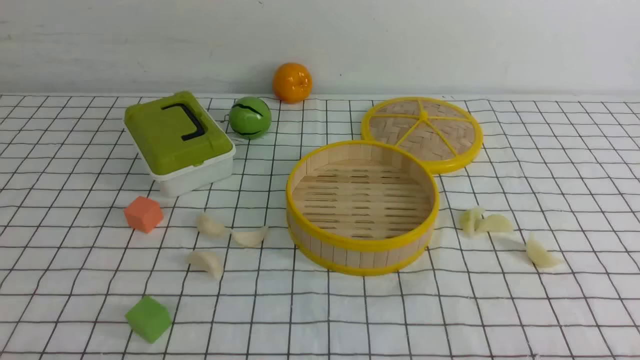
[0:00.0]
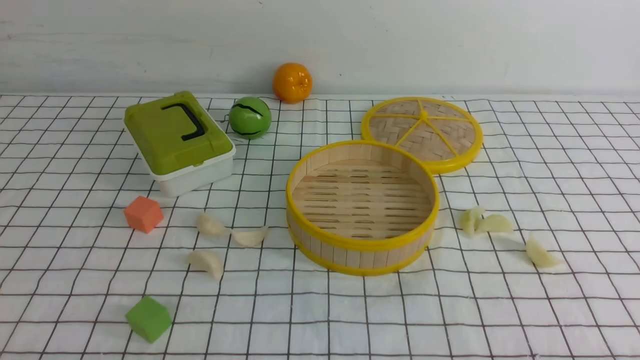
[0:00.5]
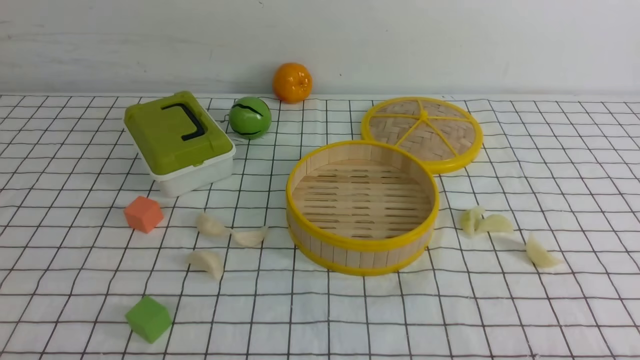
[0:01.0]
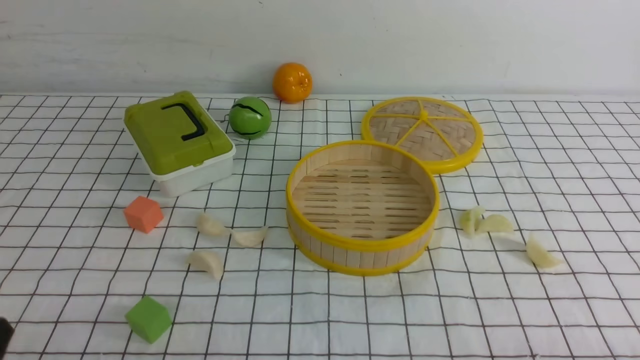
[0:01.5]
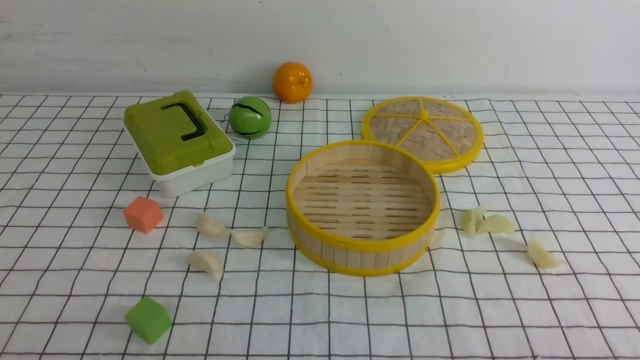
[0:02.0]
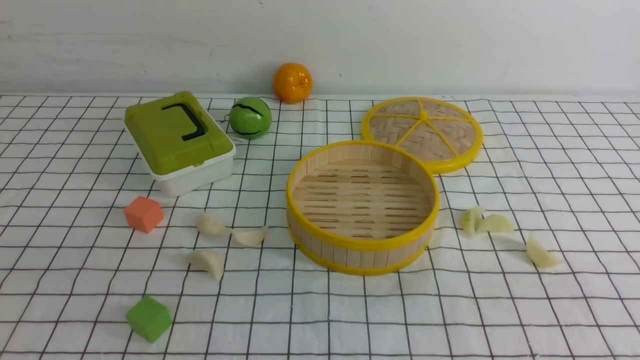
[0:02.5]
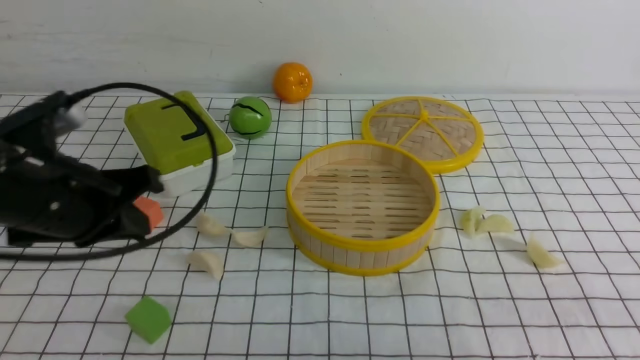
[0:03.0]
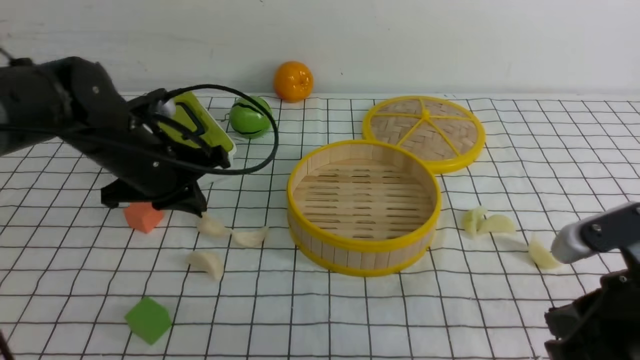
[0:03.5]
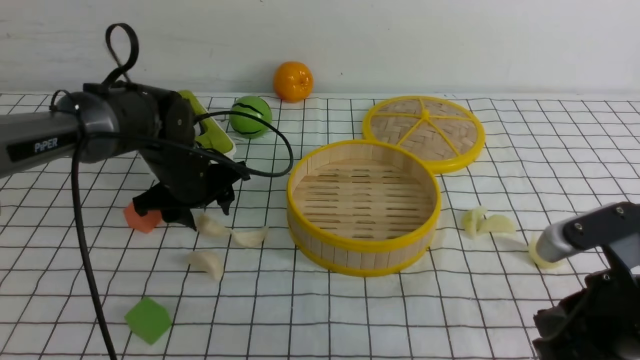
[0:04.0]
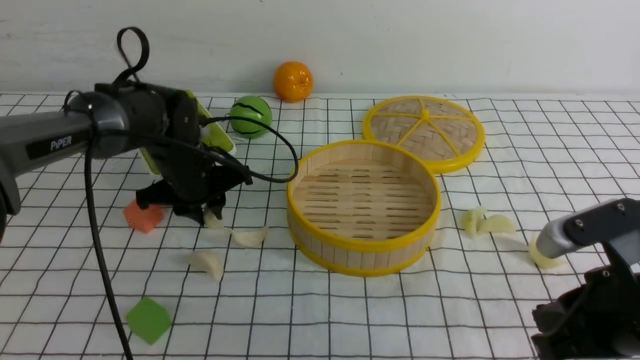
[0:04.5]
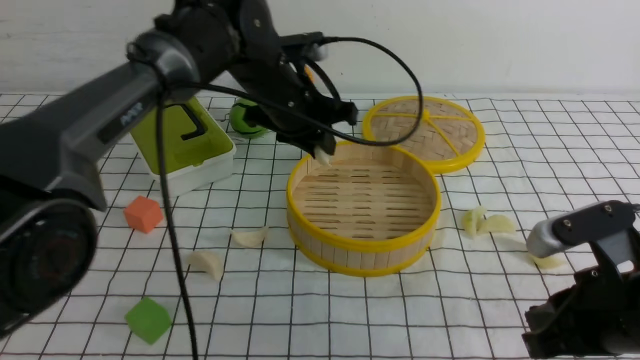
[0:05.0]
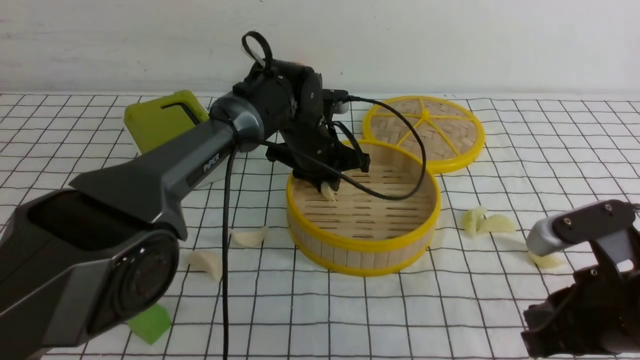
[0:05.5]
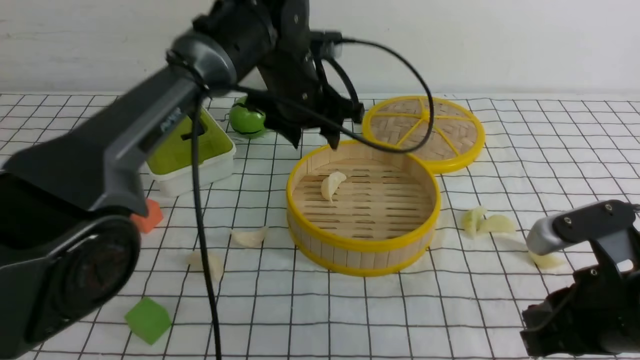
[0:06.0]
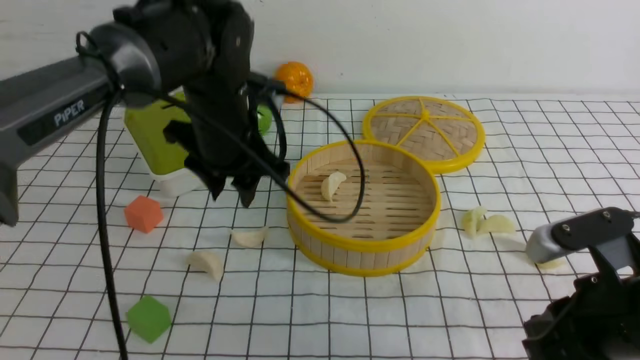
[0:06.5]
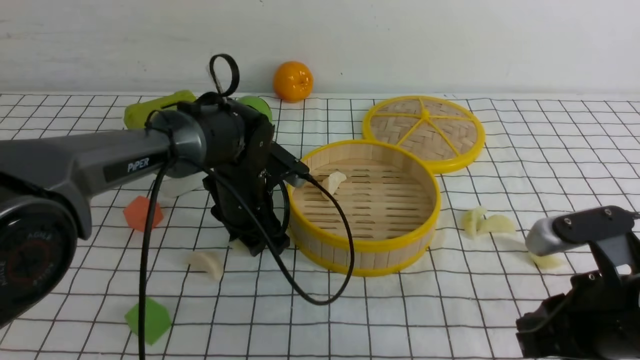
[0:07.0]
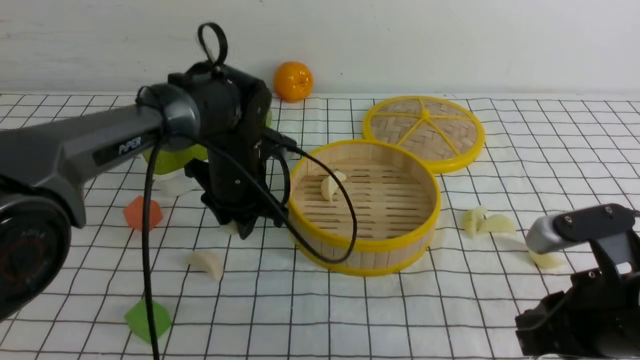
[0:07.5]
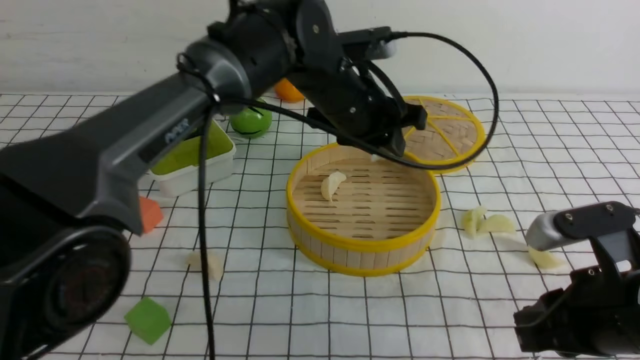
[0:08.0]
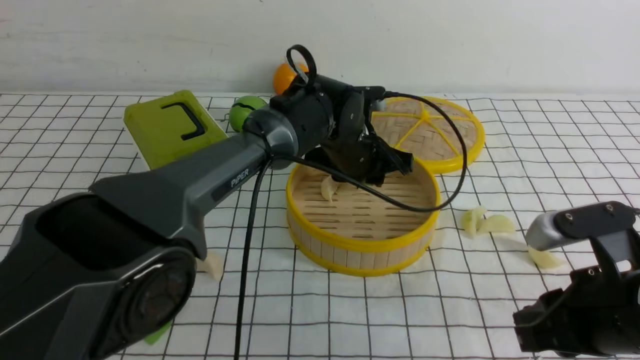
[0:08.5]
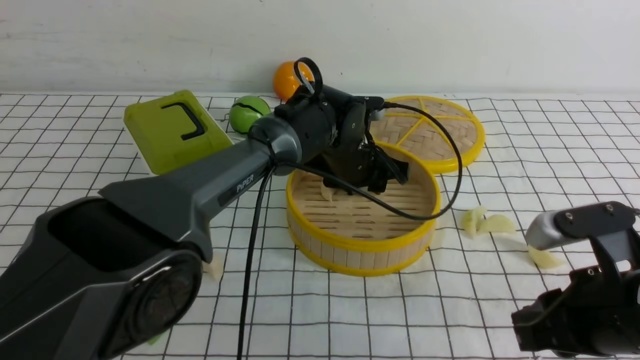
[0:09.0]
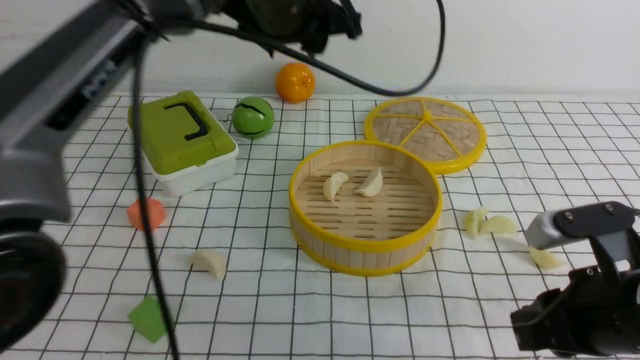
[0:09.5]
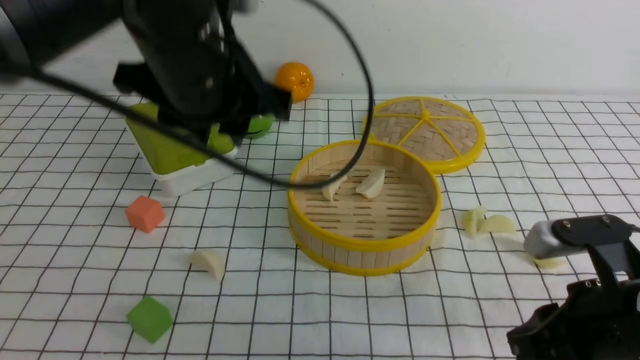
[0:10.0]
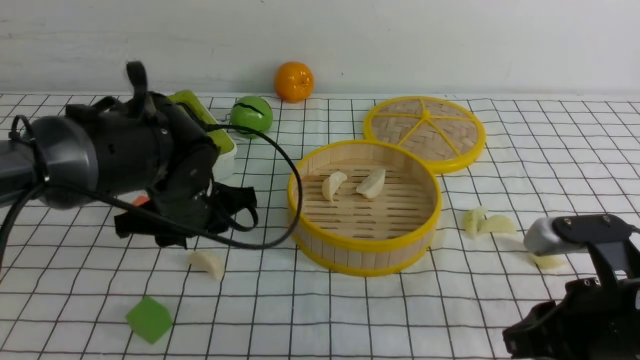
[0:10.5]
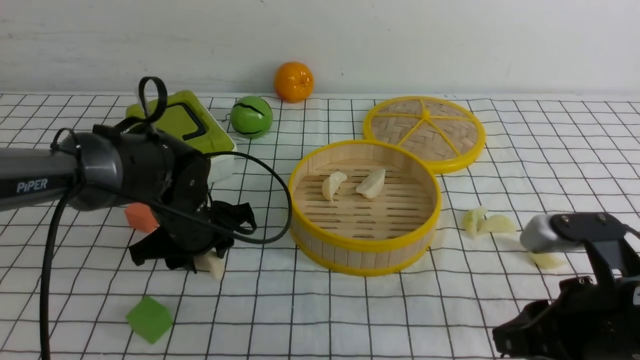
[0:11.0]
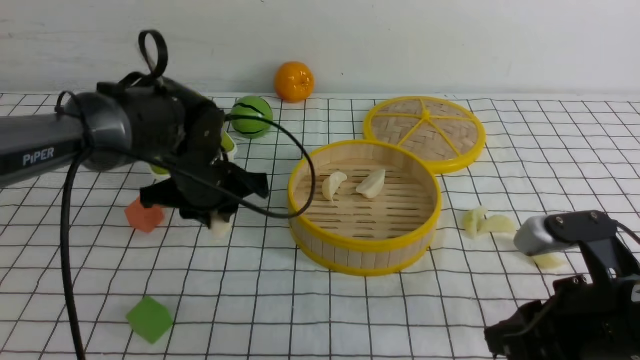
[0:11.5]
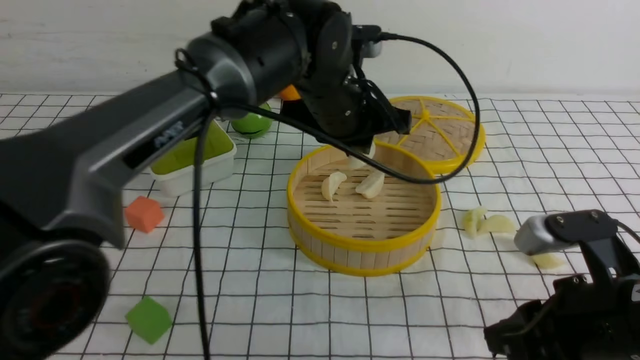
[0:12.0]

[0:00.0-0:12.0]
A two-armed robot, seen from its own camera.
Task of the whole recording: put the dumplings into the steamer on the table with the white tablecloth.
Step, 0:00.0 to 0:04.5: use the left arm to grab a dumpling.
Step, 0:05.0 to 0:06.0: use the left arm to put the dumpling into the steamer.
Step, 0:06.5 to 0:07.5: use the left arm to grab a dumpling.
Step, 0:08.0 to 0:09.5: use the left arm to put the dumpling into the steamer.
Step, 0:10.0 to 0:11.5: use the left arm to grab a dumpling.
0:02.0 to 0:04.0: The left gripper shifts approximately 40 cm forward, and opens up; the right gripper heads forward and to the left, covering about 15 cm, and closes its fingers.
0:04.0 to 0:06.0: The left gripper shifts approximately 15 cm to the right and upward, and closes, then opens again.
0:06.0 to 0:08.0: The left gripper travels downward and back again, approximately 10 cm each way, and closes its fingers.
0:08.0 to 0:10.0: The left gripper moves up and down over some 20 cm, changing direction 2 times.
0:10.0 to 0:12.0: The left gripper moves to the right, forward and downward, about 15 cm.

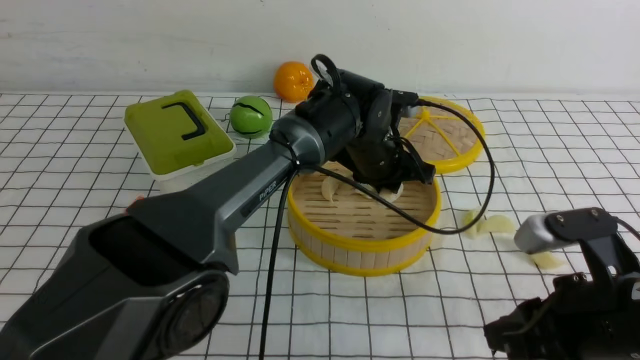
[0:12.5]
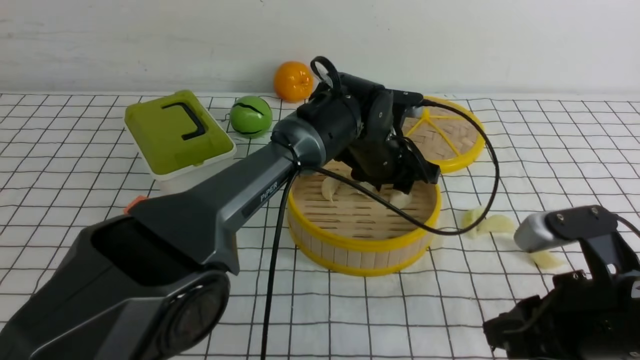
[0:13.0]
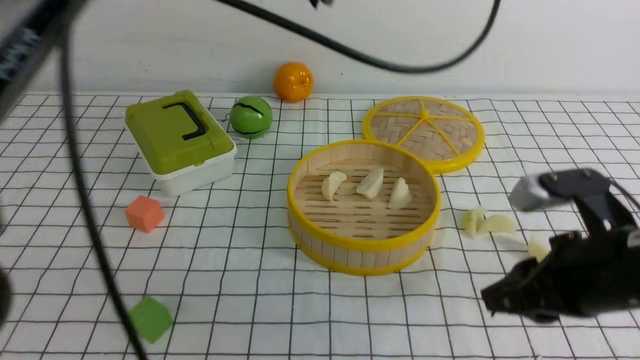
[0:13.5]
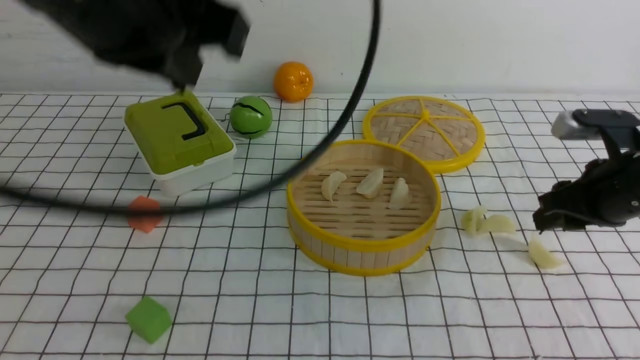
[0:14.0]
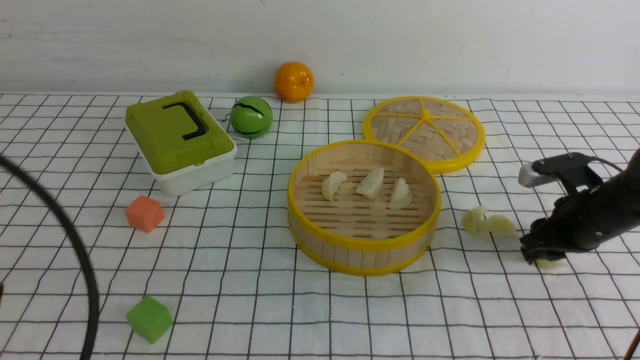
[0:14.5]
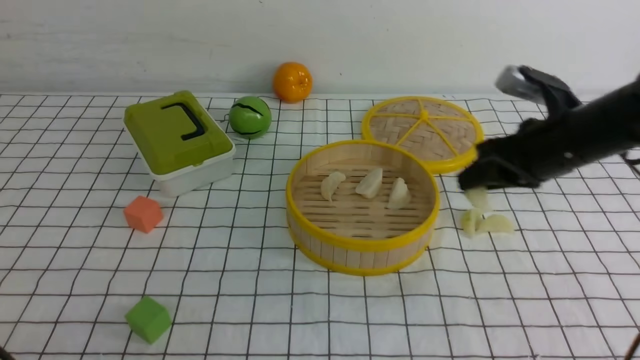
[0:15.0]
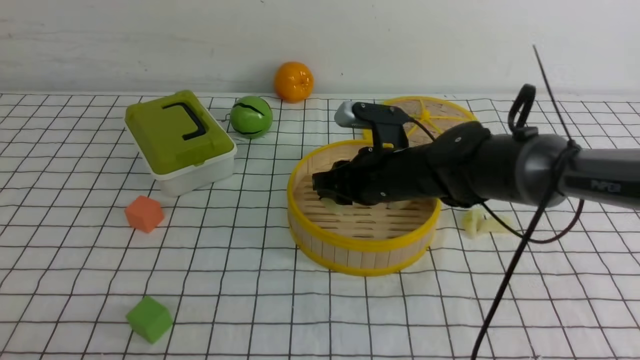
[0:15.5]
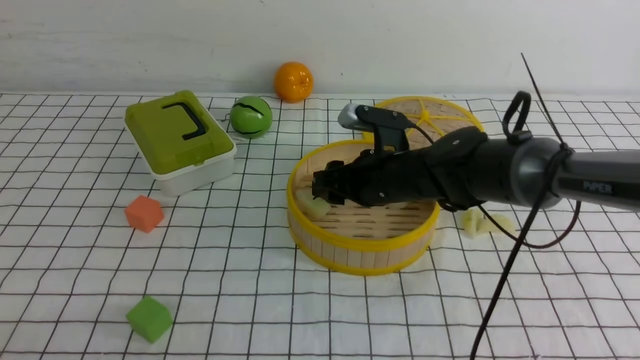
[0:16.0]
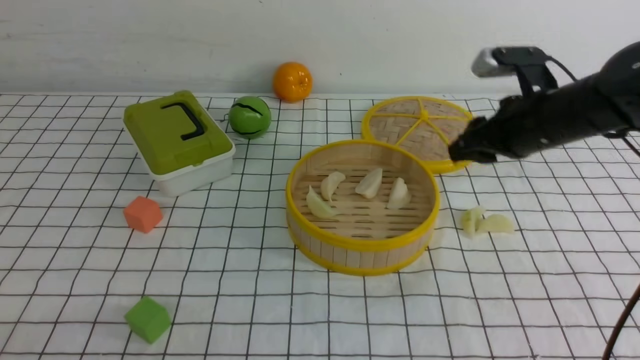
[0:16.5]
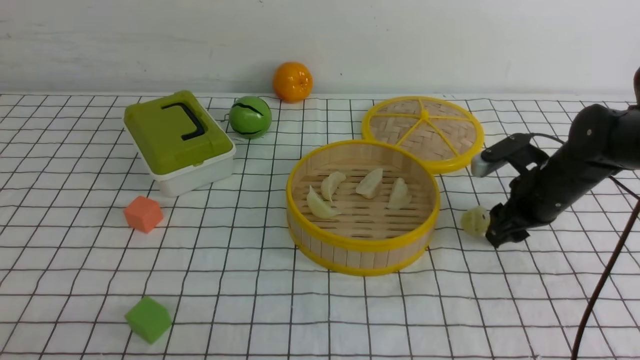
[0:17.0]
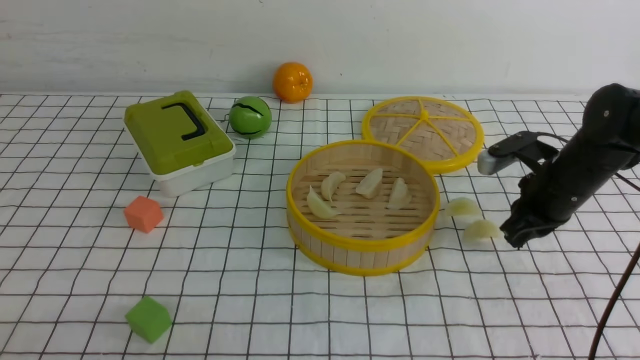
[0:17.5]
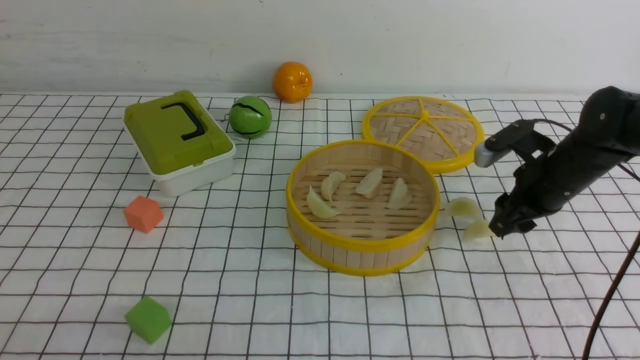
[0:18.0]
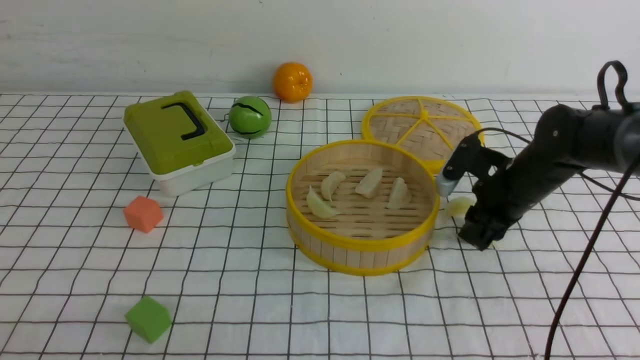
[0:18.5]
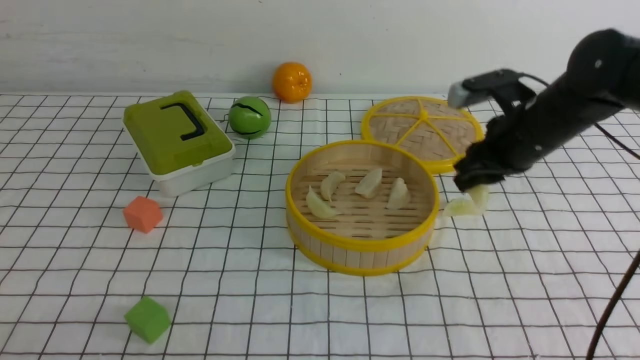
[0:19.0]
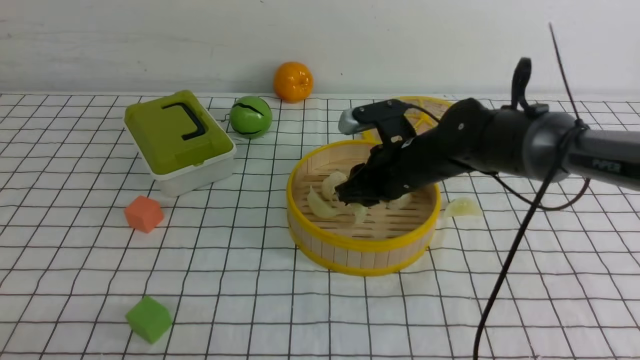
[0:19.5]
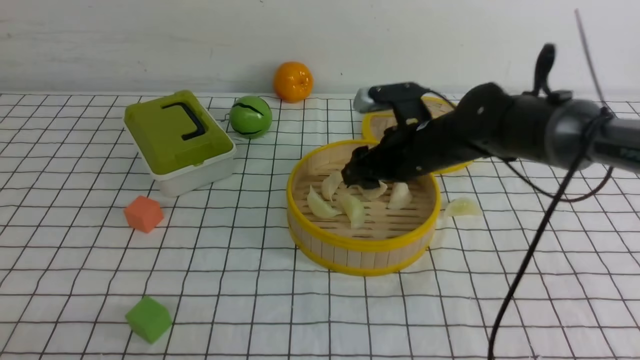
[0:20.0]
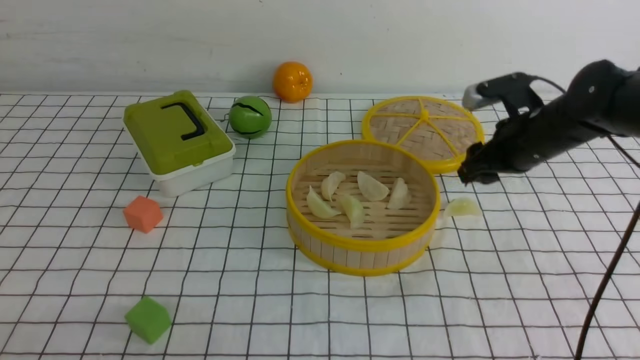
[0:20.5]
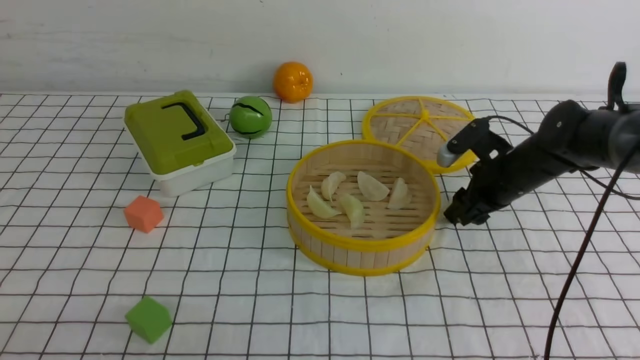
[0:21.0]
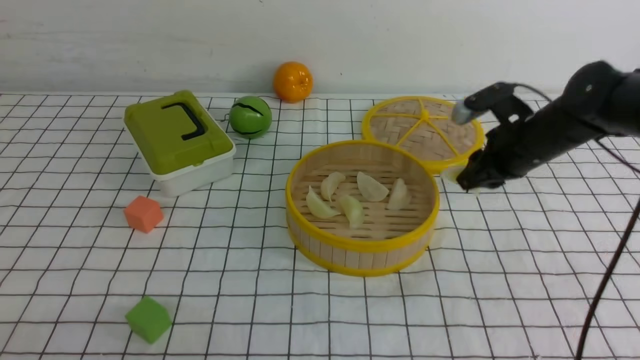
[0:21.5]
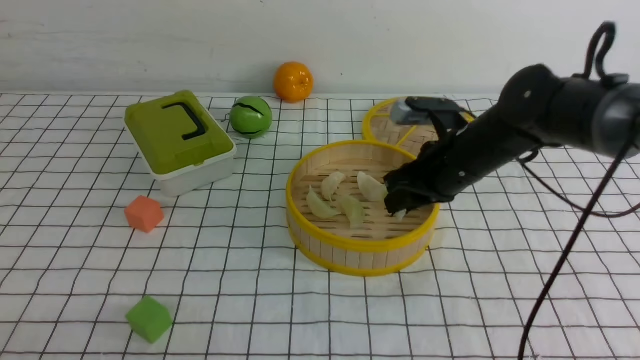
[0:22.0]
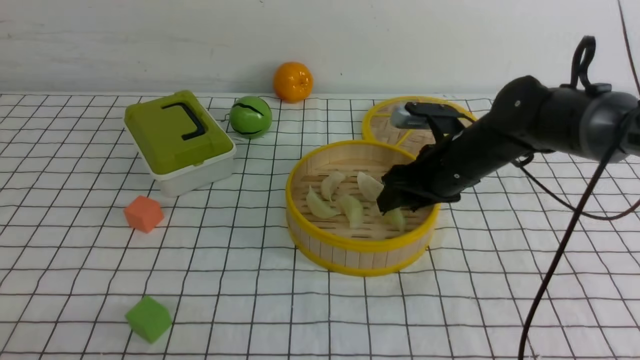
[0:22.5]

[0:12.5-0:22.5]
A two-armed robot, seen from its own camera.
Task of the whole recording: put the dumplings into the steamer on the table with the white tablecloth.
Step, 0:13.5 to 0:15.0: use the right arm to grab a dumpling.
Step, 0:15.5 to 0:16.0: use the right arm to put the dumpling into the steamer.
Step, 0:16.5 to 0:18.0: use the right arm to grab a dumpling.
Step, 0:18.5 to 0:19.5: use the right arm to put the dumpling into the steamer.
Step, 0:20.0 to 0:21.5: use the right arm to grab a dumpling.
0:12.5 to 0:14.5: The right gripper is displaced forward and to the right by about 20 cm, while the left gripper moves backward, to the left and upward, approximately 50 cm, and closes.
0:14.5 to 0:16.5: The right gripper goes approximately 10 cm to the left and upward. Meanwhile the left gripper shifts about 15 cm downward, backward and to the left.
0:16.5 to 0:18.5: The right gripper shifts some 5 cm downward, and closes, then opens again.
0:18.5 to 0:20.5: The right gripper goes to the left and returns, some 15 cm each way, and opens up.
0:20.5 to 0:22.5: The right gripper heads to the left, covering roughly 10 cm, and closes and opens again.
